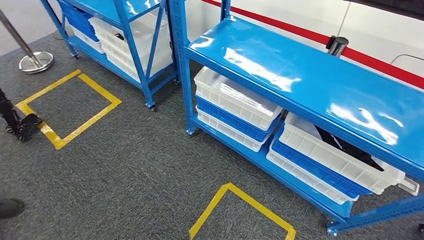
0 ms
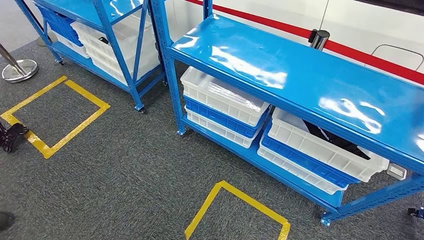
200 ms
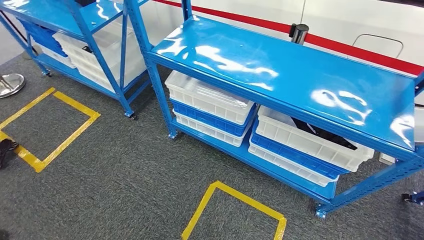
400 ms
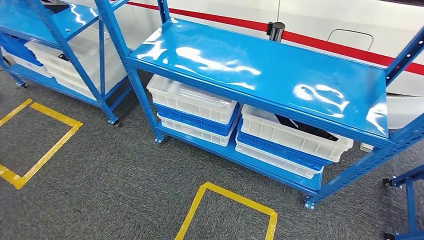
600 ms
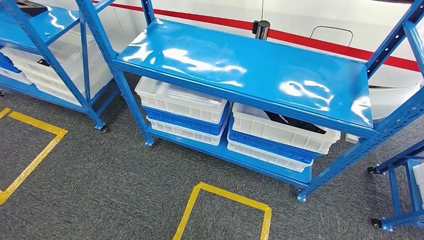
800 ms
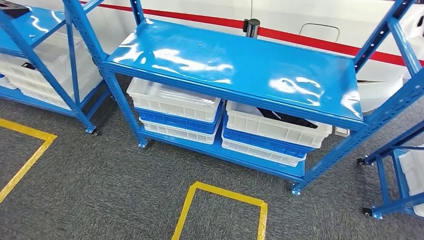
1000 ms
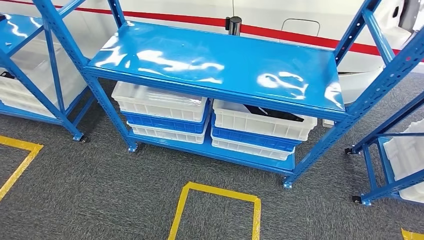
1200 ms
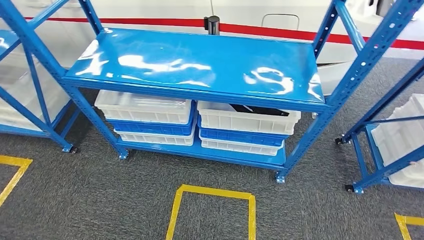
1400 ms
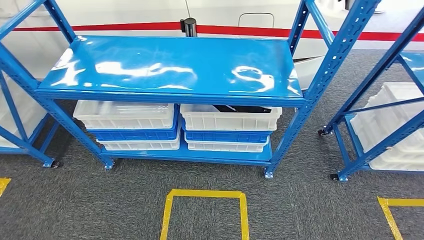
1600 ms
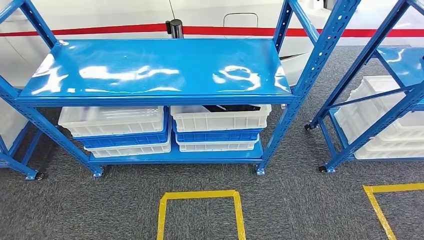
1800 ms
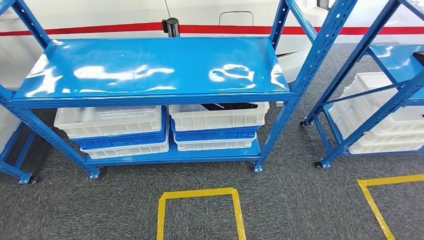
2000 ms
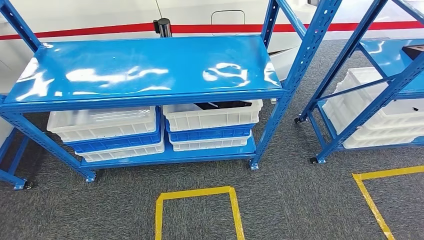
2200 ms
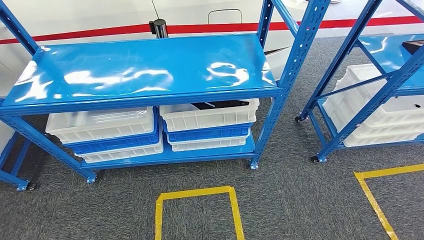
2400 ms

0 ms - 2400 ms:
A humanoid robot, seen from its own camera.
Step, 0 ms - 2400 ms: Move to the initial position of the shelf.

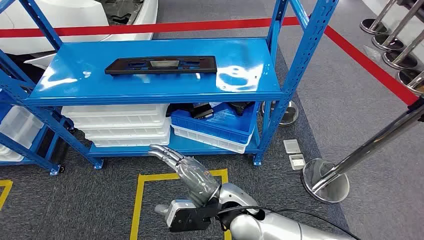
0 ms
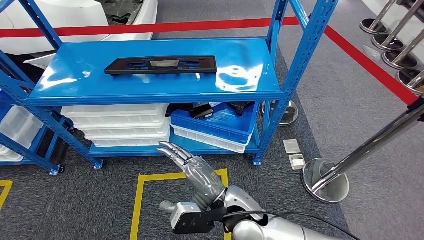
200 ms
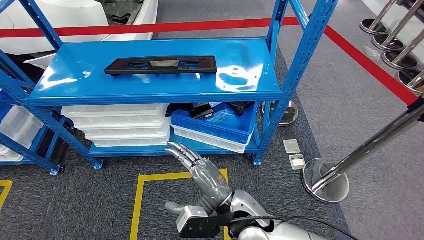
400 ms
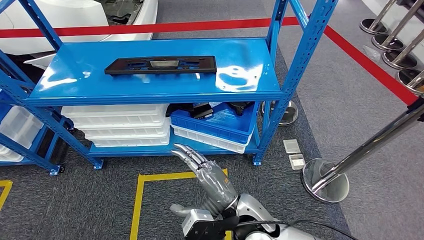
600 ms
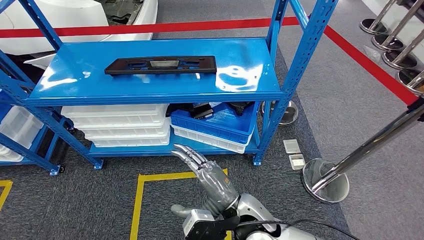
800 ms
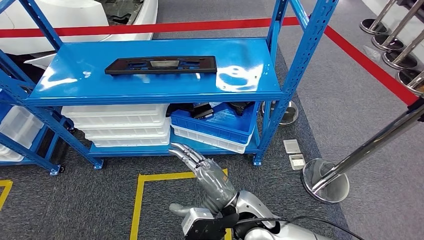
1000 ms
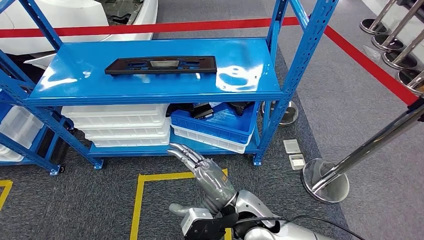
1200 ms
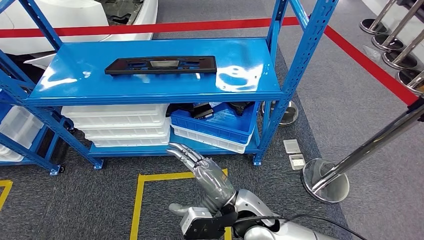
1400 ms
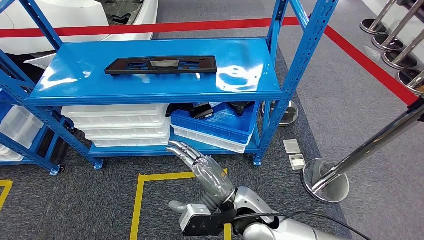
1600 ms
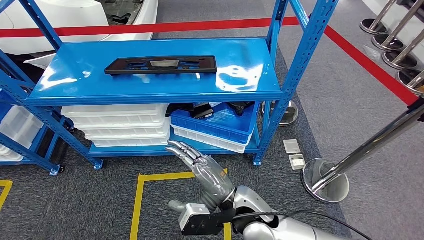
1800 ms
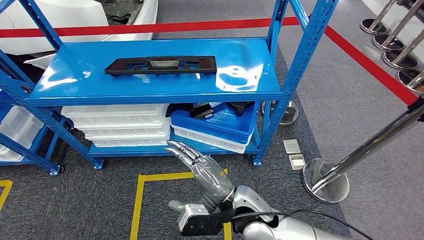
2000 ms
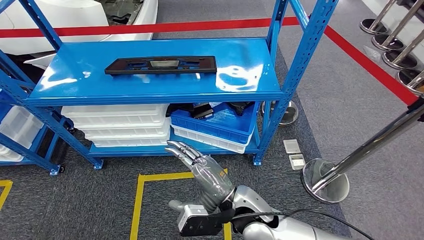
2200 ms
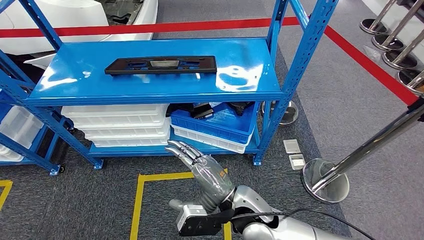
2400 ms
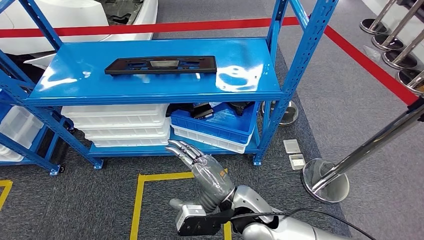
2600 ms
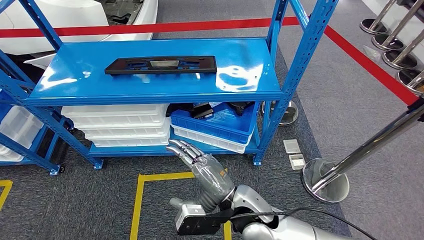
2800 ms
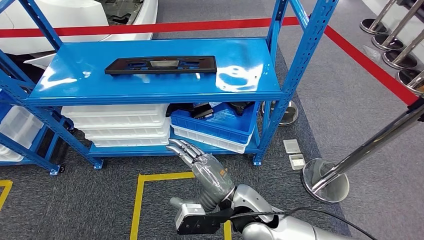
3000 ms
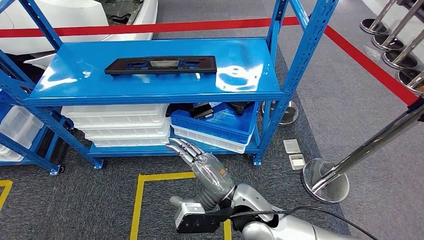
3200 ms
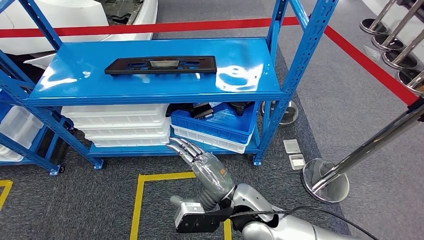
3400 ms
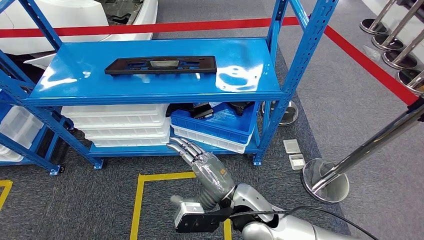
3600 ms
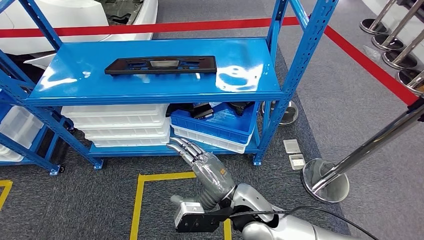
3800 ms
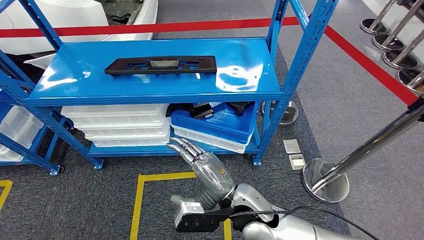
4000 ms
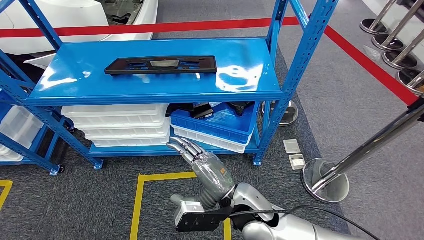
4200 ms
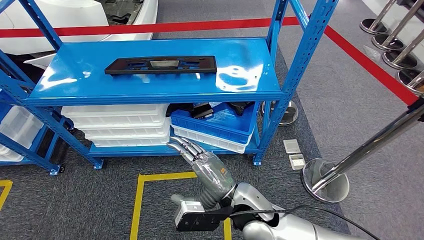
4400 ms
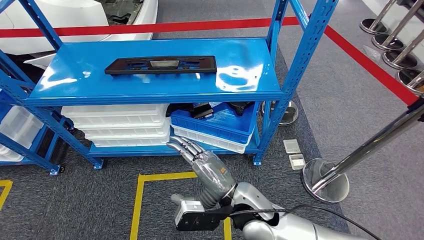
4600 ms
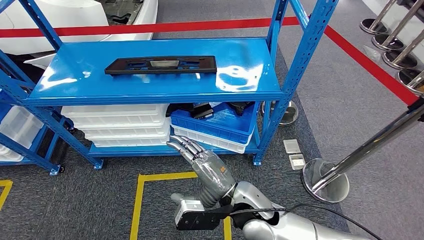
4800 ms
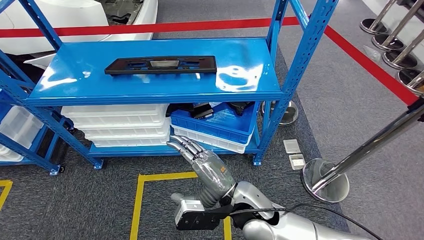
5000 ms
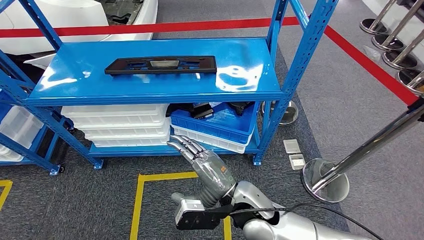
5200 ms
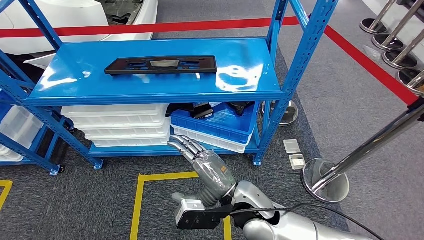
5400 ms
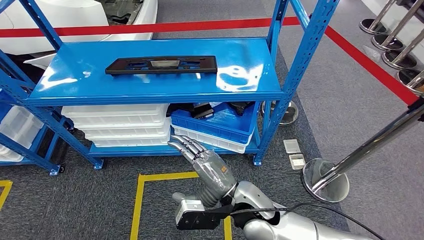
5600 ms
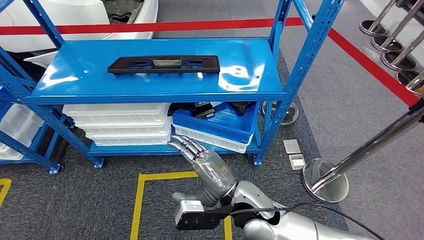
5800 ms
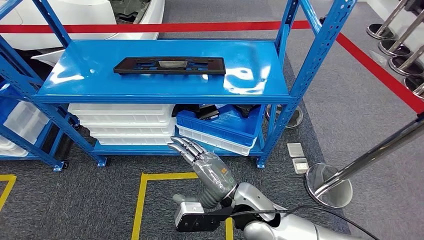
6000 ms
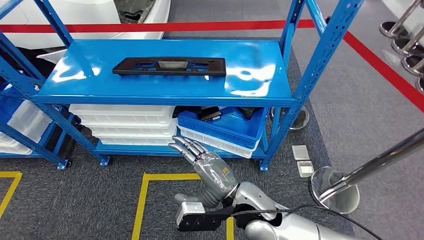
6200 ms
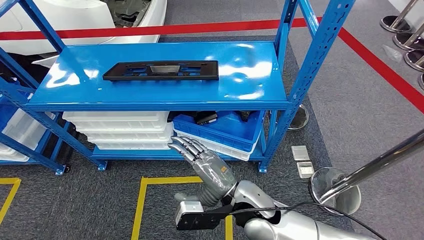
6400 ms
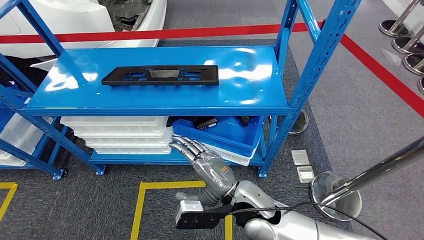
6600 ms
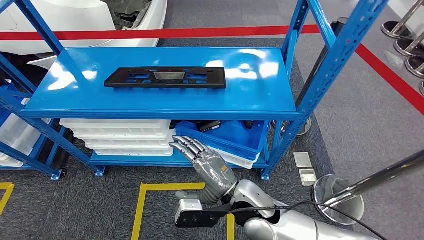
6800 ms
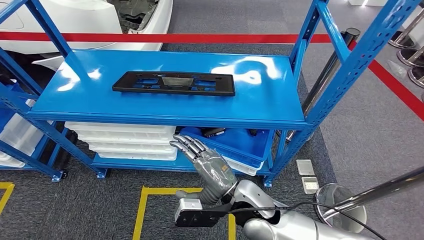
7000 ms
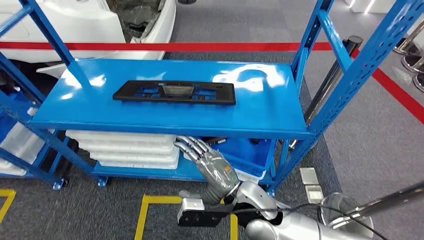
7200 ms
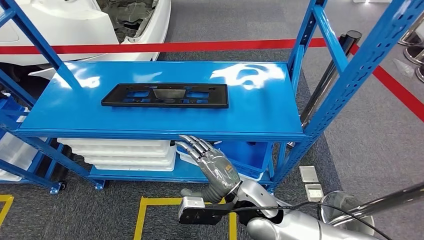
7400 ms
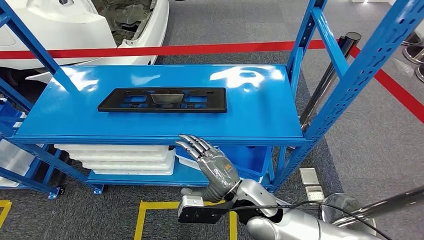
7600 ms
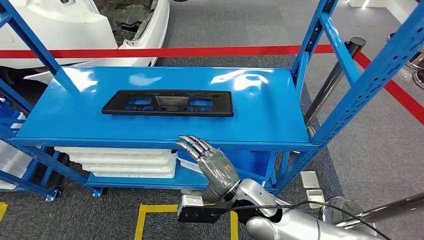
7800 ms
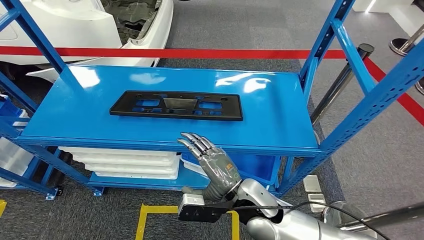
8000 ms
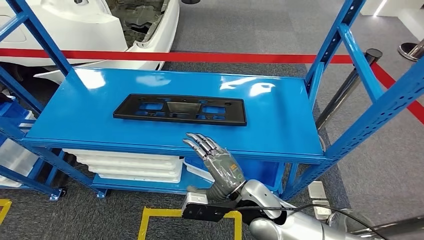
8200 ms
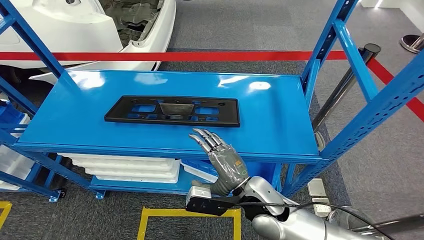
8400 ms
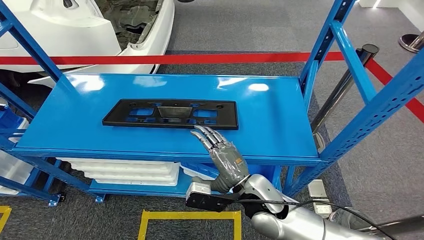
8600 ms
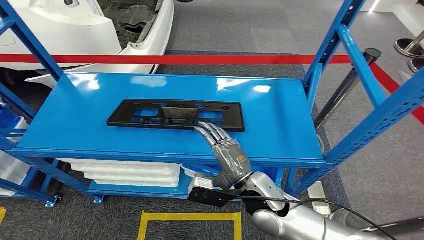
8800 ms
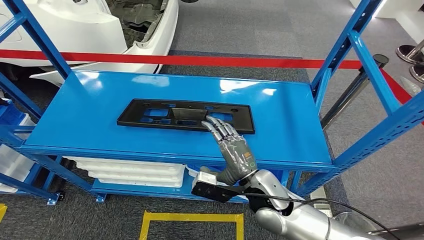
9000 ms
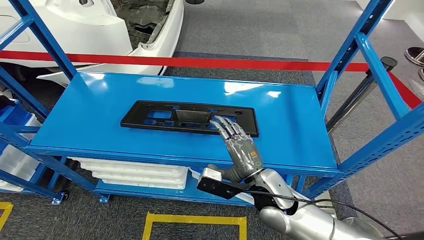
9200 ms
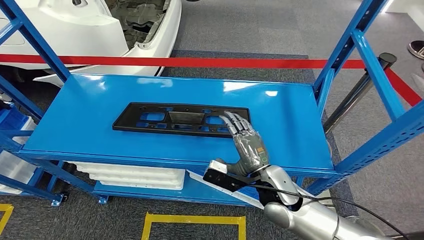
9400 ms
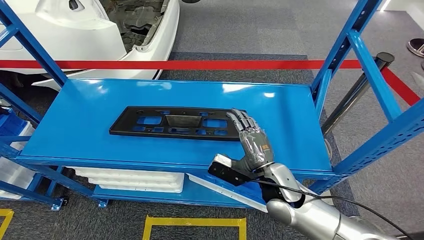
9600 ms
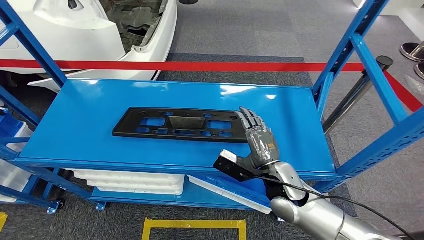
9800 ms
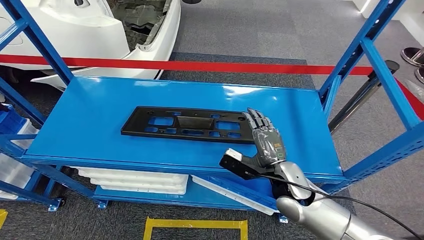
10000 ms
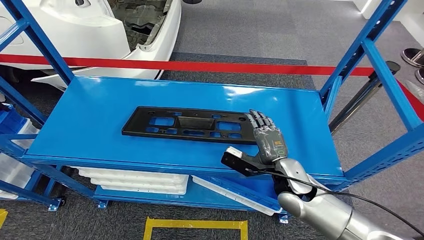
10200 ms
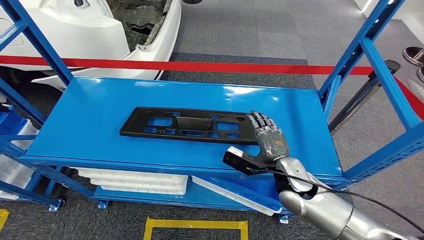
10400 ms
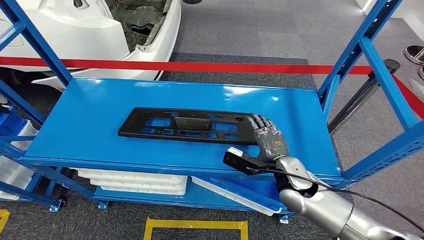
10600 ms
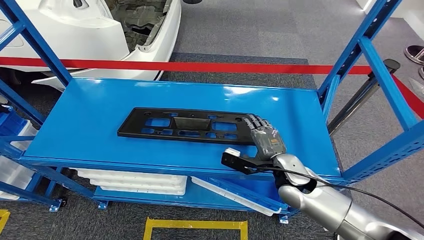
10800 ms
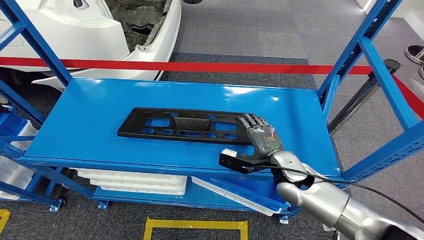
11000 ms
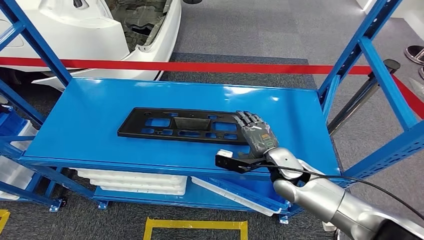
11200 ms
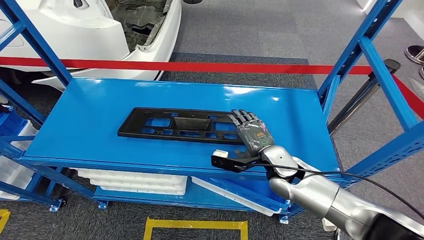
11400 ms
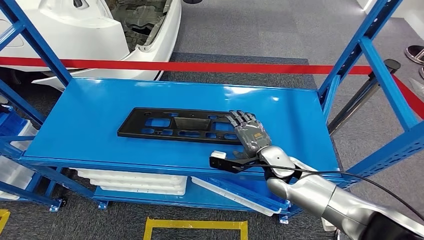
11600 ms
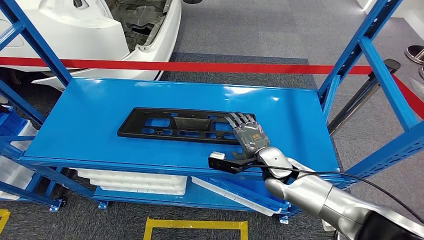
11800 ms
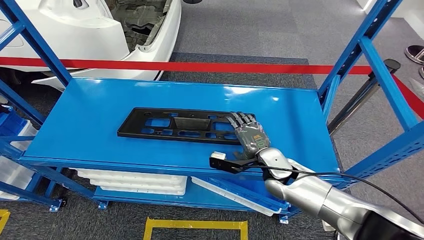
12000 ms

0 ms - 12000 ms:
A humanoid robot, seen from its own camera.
1600 ms - 3000 ms: The hands move only a little.
3000 ms - 4400 ms: Neither hand changes place.
10400 ms - 12000 ms: The right hand shifts by some 5 cm.

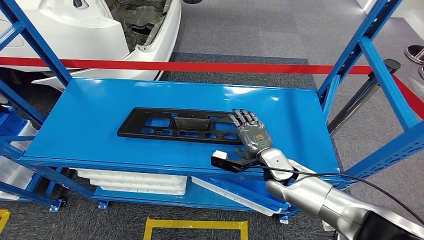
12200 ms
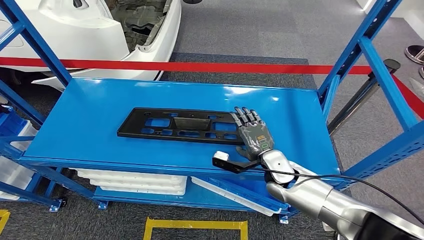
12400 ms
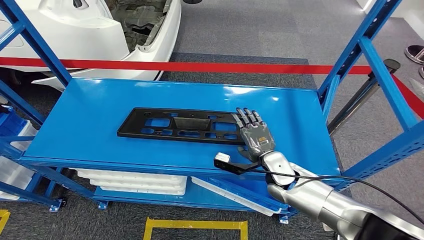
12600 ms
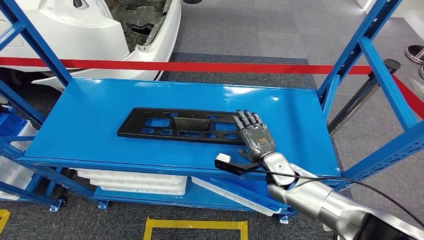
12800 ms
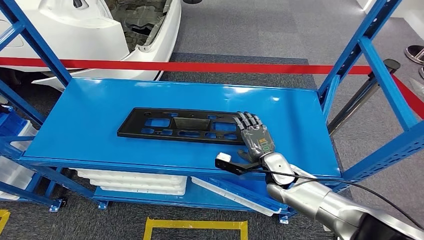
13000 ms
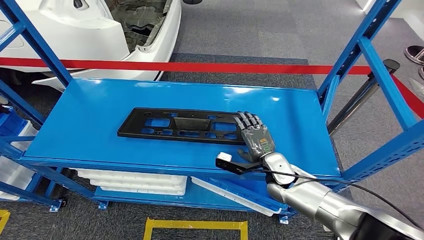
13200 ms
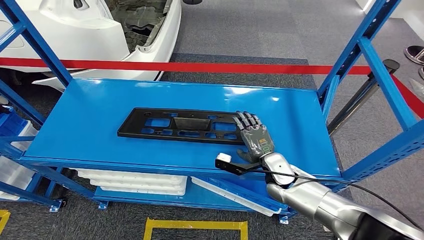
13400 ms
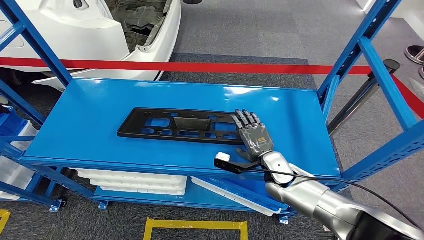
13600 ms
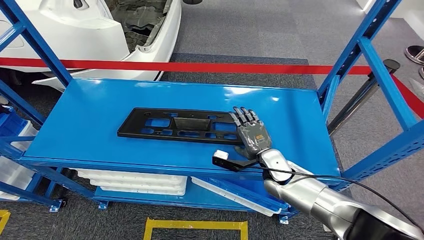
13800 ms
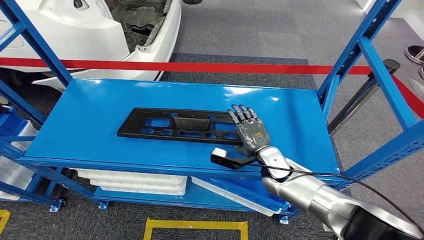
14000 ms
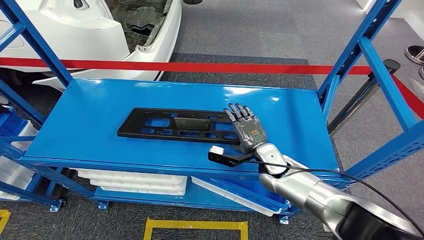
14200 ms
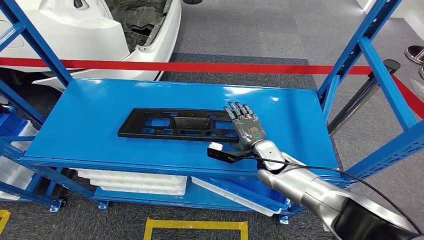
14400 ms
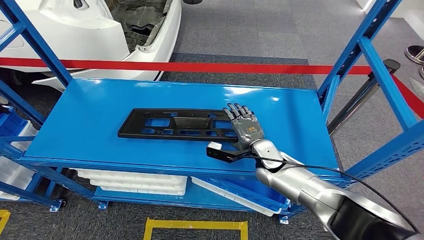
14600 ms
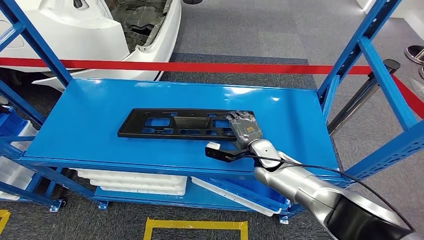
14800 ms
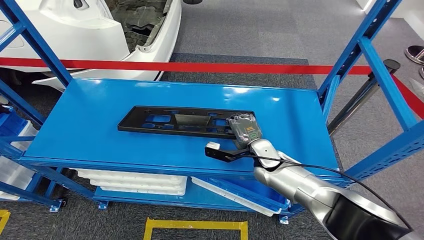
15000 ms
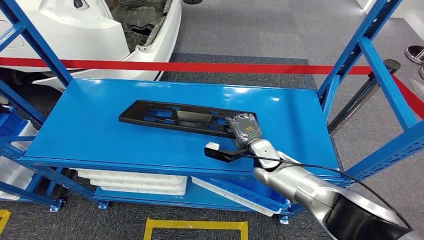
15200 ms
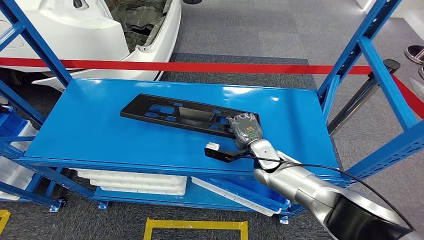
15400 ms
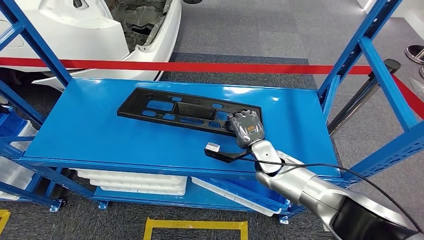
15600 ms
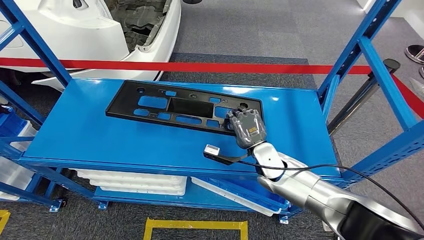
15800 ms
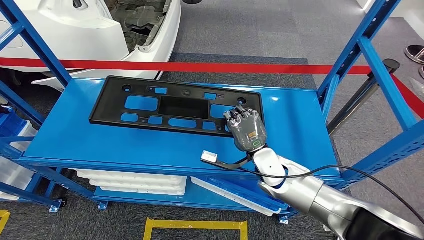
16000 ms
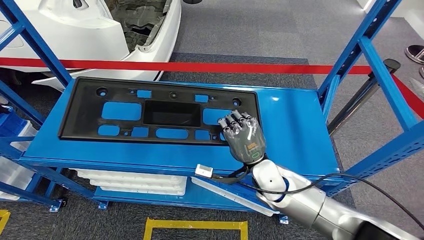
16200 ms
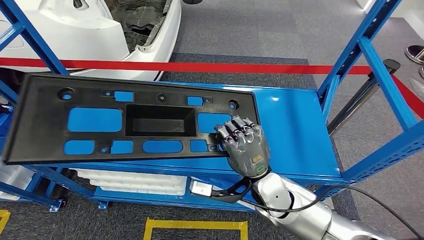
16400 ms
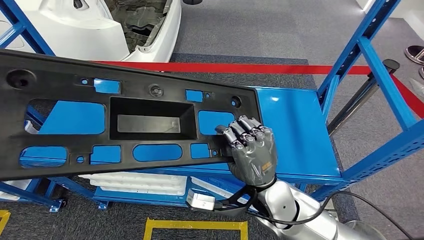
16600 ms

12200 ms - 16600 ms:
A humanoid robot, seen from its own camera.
12200 ms - 15200 ms: The hands make only small movements.
